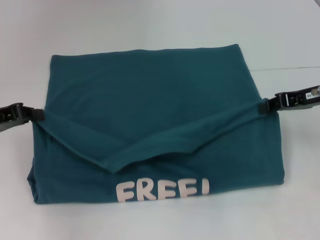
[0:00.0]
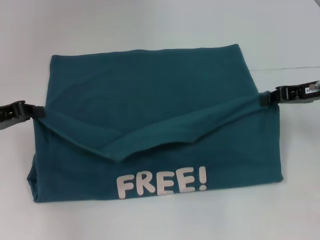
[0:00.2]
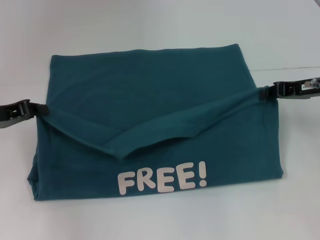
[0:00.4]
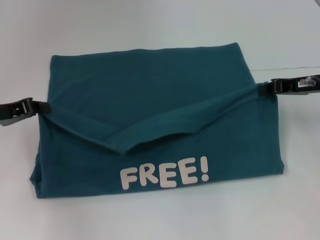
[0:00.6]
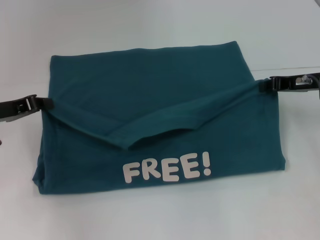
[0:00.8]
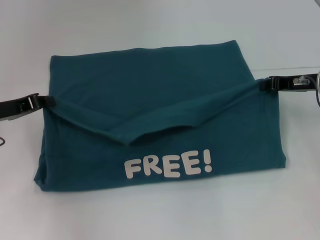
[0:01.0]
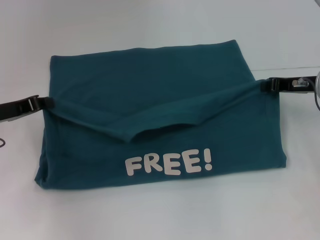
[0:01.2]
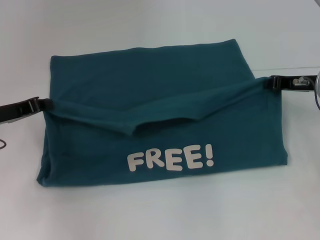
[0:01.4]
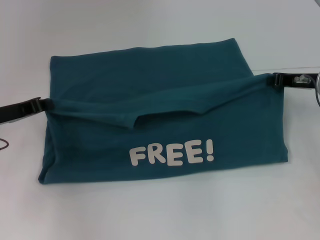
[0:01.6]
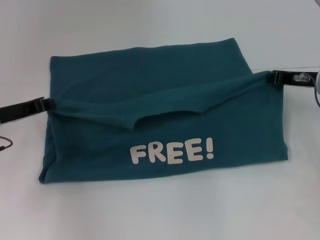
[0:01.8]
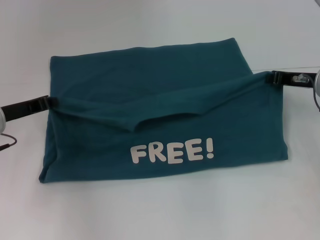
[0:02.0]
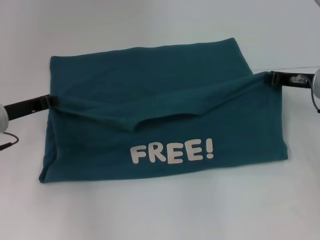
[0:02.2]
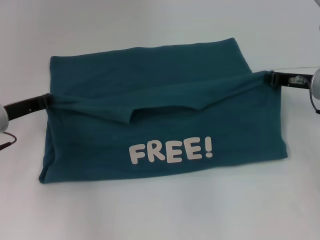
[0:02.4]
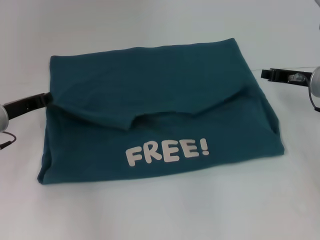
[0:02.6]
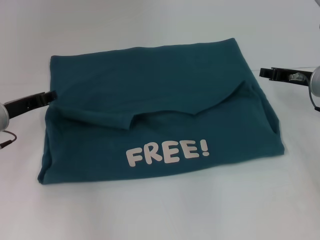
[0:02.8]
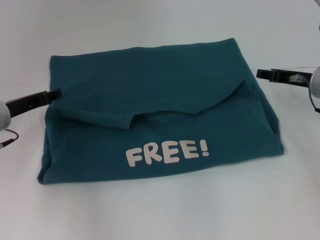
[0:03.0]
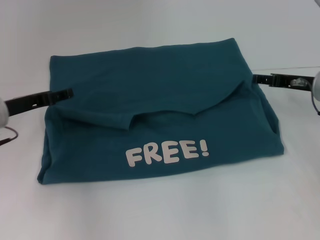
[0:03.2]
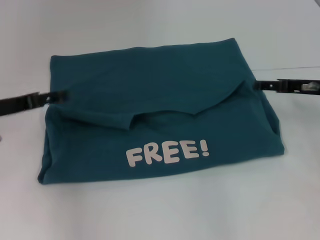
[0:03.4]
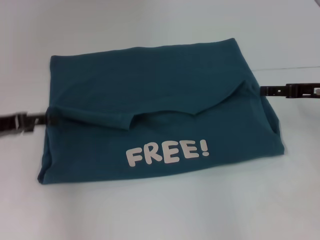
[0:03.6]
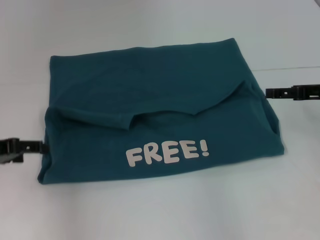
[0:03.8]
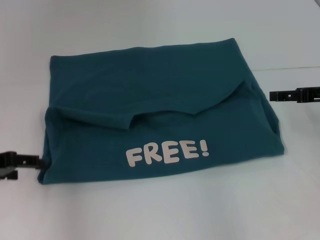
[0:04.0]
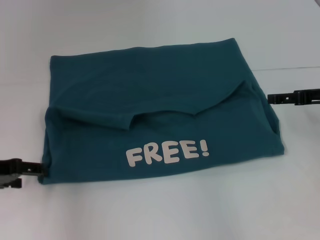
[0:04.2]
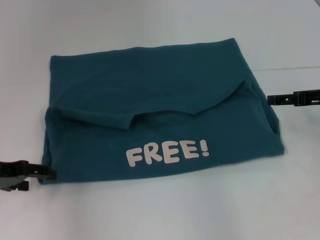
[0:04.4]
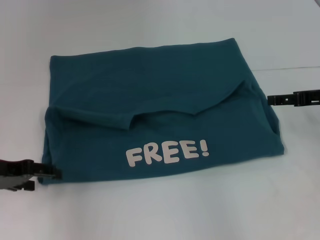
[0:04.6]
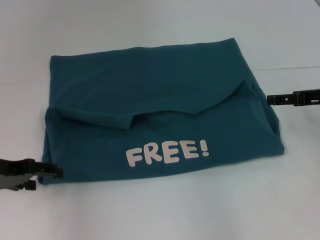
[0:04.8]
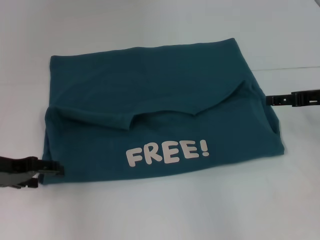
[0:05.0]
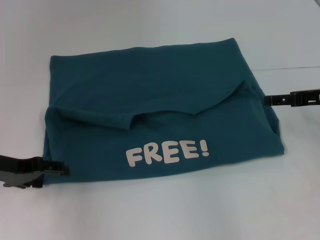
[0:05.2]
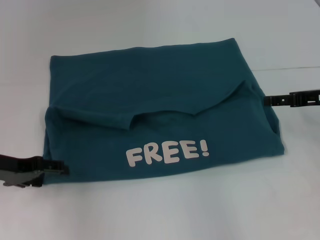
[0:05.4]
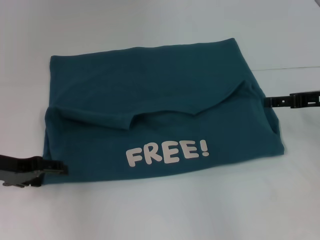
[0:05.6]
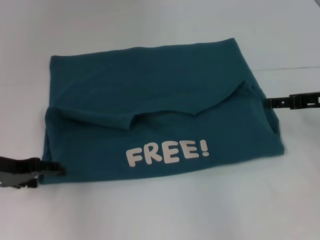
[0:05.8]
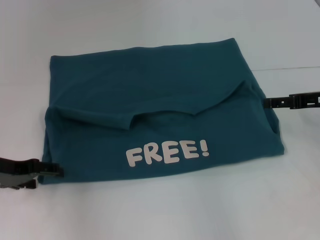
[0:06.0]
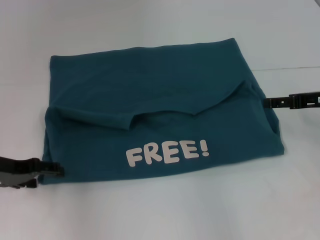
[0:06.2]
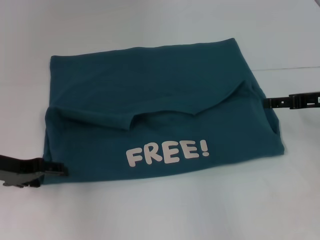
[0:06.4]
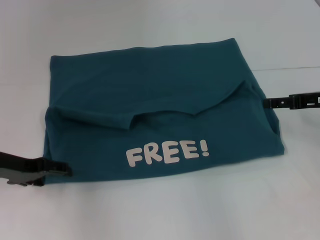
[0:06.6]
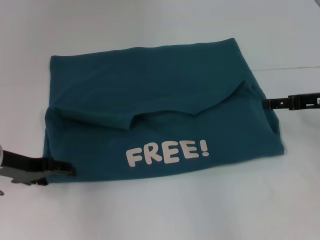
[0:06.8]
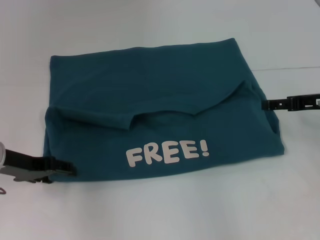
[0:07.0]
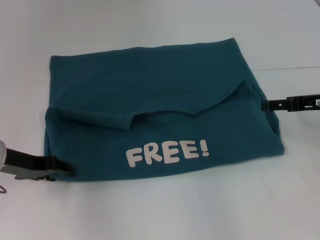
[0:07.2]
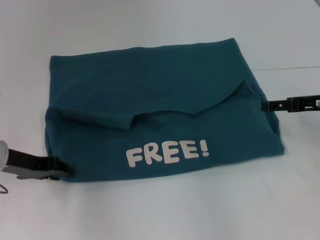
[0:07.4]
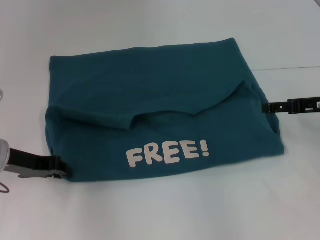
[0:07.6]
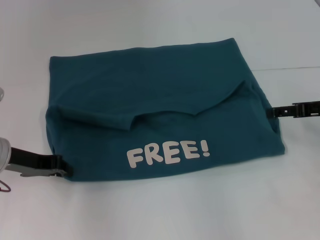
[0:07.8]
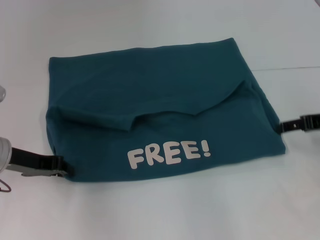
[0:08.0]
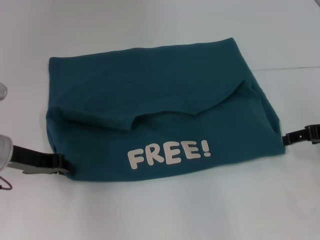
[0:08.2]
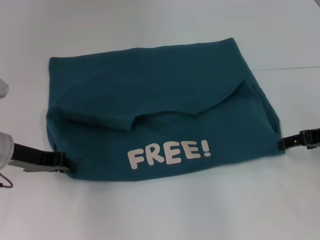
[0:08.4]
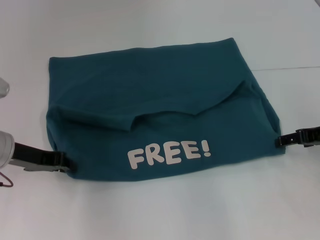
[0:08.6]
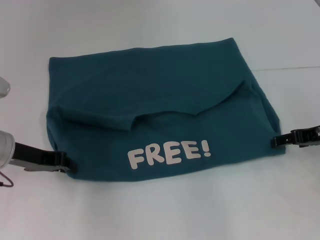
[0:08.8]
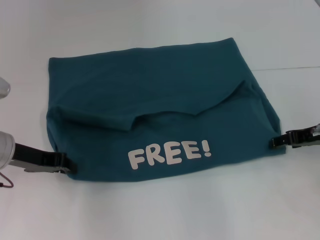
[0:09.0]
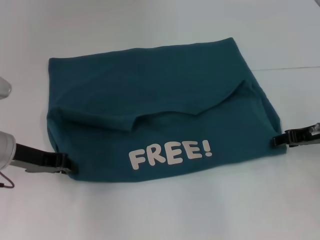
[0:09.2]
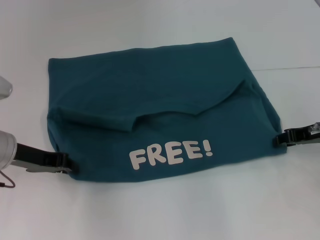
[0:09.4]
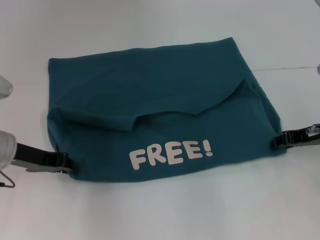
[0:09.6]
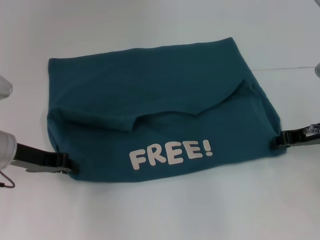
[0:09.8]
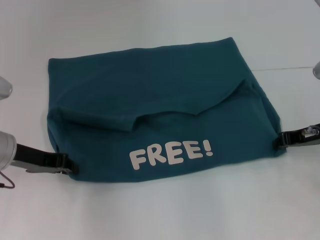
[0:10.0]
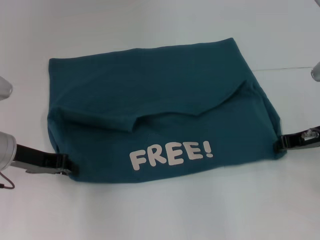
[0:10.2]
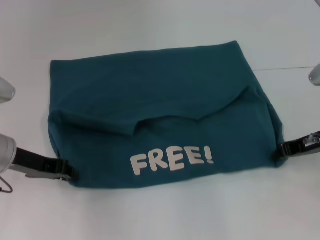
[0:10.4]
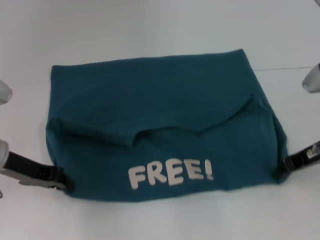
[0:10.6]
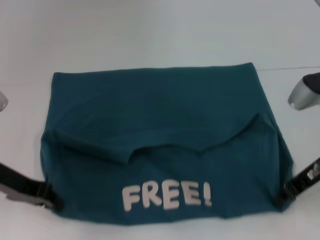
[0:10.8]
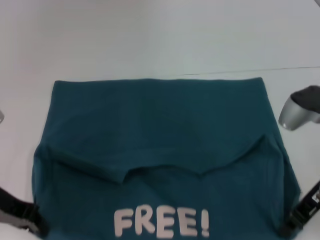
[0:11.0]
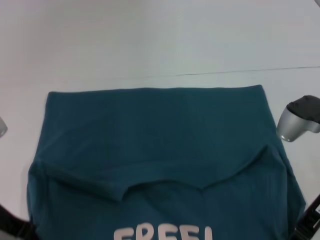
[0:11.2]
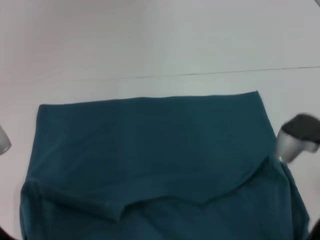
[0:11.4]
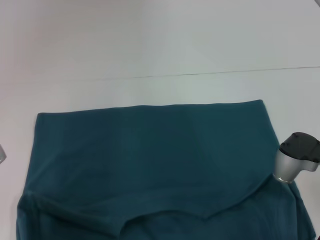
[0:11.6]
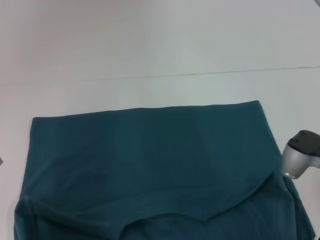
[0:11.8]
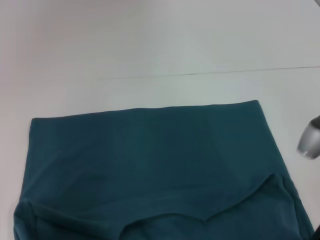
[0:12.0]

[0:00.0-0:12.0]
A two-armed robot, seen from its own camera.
Step, 0:00.0 to 0:02.8: Fold the clothes to the left.
Step, 0:00.0 to 0:02.8: Fold the clothes to the right.
Step, 0:03.0 to 0:11.6: Pull the clothes with your left hand.
Step, 0:03.0 to 0:11.6: Pull the clothes with your right hand.
0:00.0 to 0:01.6: The right gripper ends up approximately 5 cm from where it was. Meanwhile the left gripper shifts by about 5 cm.
0:01.6 to 0:03.0: The left gripper opens its fingers.
0:03.0 to 0:04.4: The grippers both shift backward by roughly 5 cm. The right gripper opens up. The left gripper opens.
0:04.4 to 0:06.0: The grippers stay close to where they were, moving slightly.
0:06.0 to 0:07.6: The left gripper closes its fingers.
0:07.6 to 0:09.0: The grippers move only a little.
0:09.0 to 0:10.4: The right gripper closes up.
0:10.4 to 0:12.0: Both grippers move backward, approximately 10 cm.

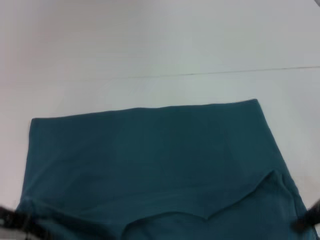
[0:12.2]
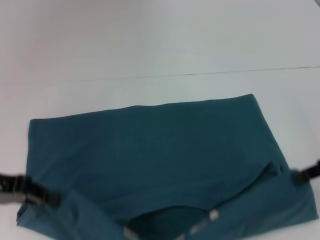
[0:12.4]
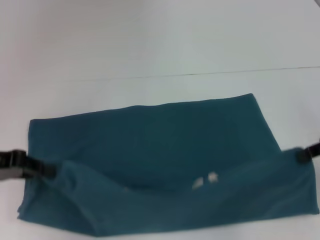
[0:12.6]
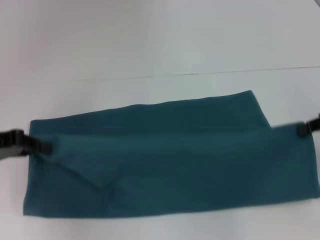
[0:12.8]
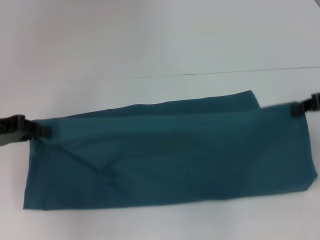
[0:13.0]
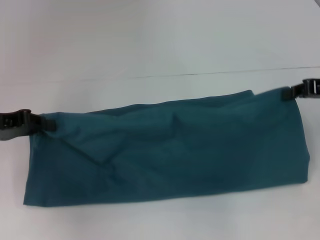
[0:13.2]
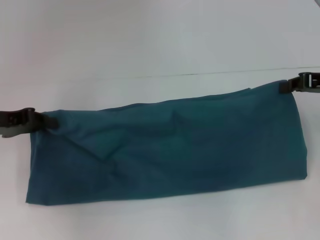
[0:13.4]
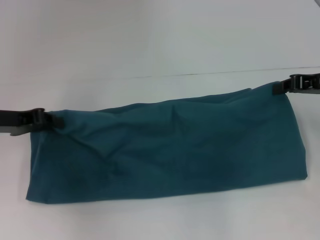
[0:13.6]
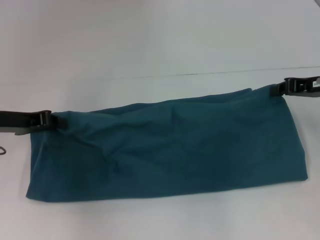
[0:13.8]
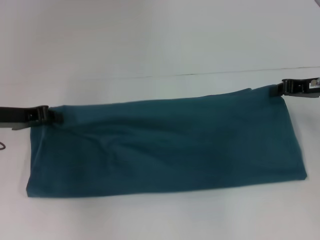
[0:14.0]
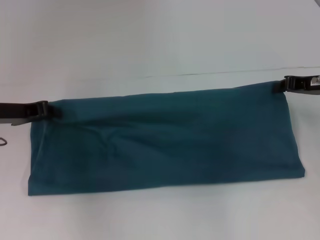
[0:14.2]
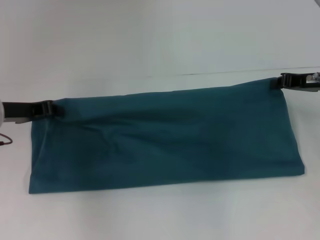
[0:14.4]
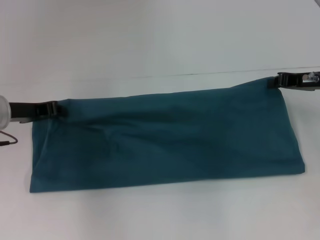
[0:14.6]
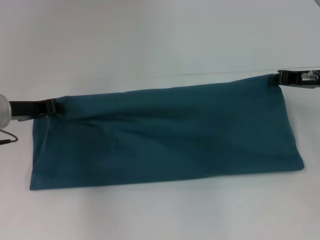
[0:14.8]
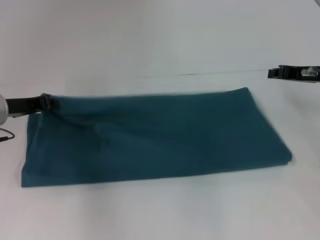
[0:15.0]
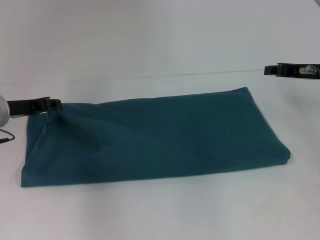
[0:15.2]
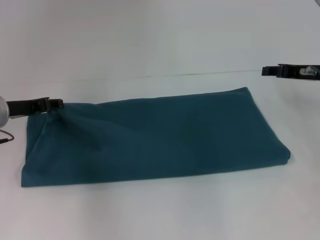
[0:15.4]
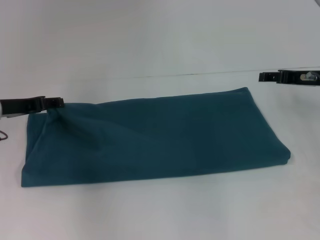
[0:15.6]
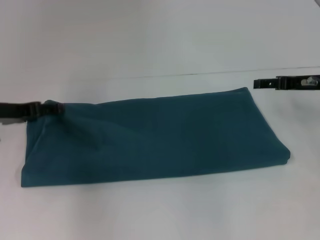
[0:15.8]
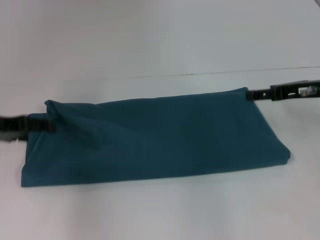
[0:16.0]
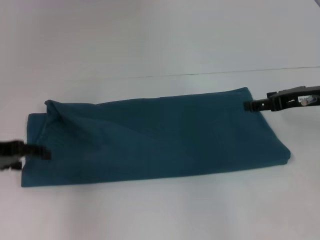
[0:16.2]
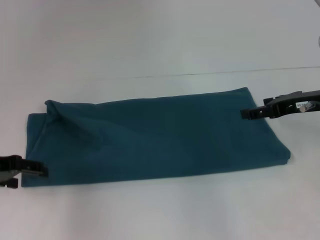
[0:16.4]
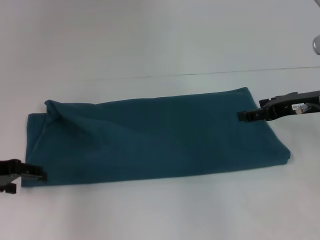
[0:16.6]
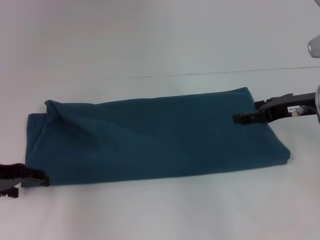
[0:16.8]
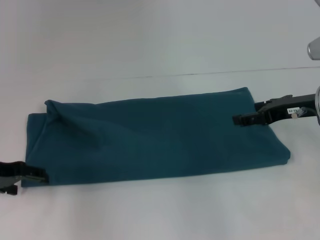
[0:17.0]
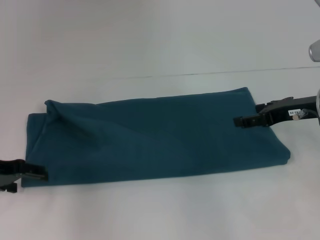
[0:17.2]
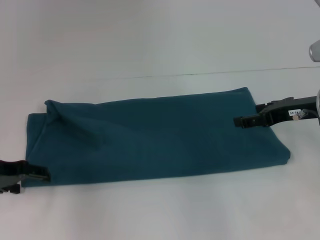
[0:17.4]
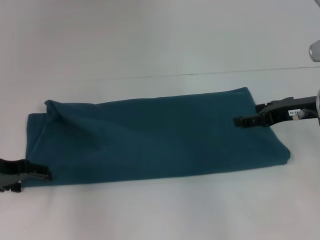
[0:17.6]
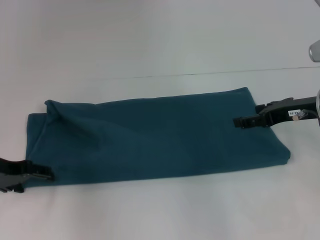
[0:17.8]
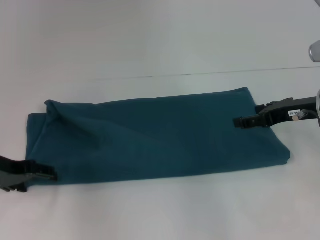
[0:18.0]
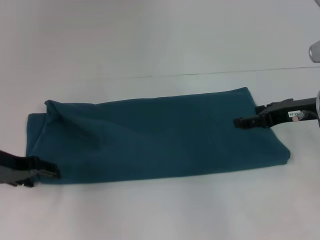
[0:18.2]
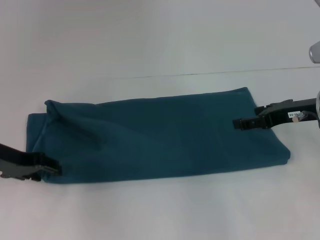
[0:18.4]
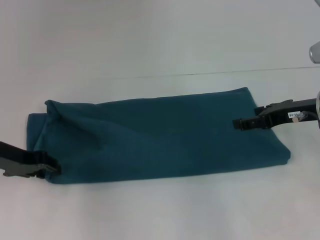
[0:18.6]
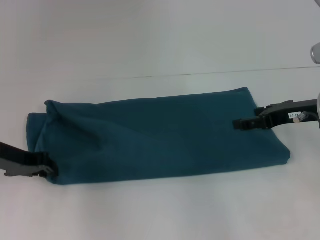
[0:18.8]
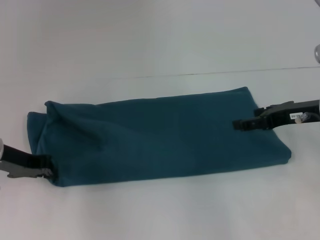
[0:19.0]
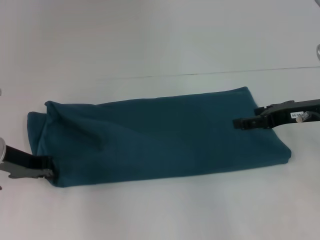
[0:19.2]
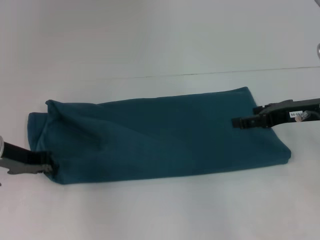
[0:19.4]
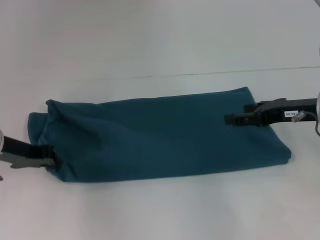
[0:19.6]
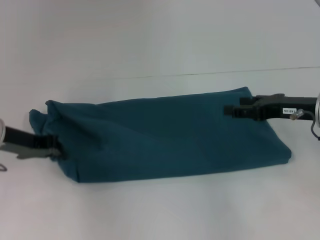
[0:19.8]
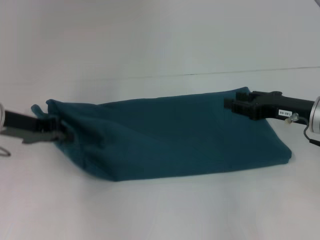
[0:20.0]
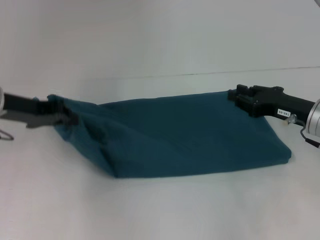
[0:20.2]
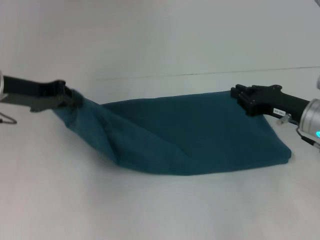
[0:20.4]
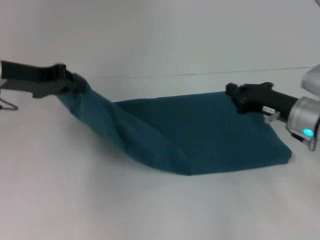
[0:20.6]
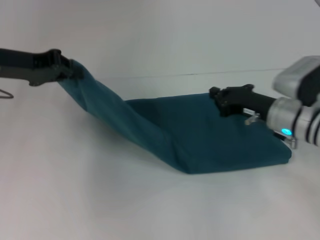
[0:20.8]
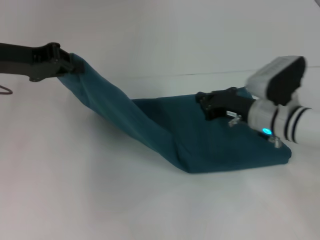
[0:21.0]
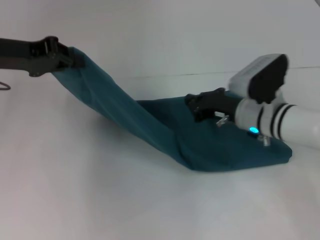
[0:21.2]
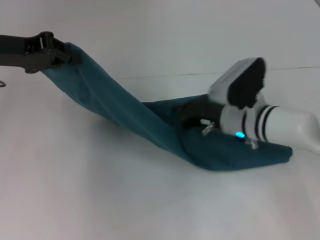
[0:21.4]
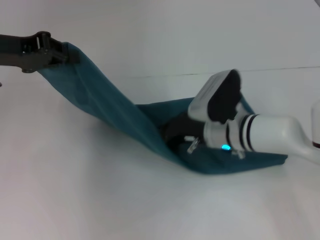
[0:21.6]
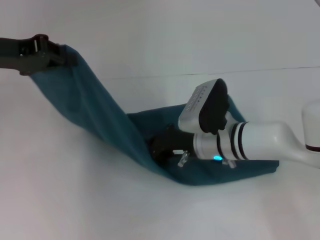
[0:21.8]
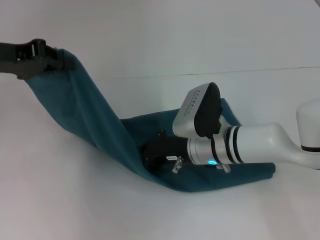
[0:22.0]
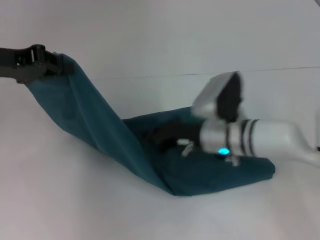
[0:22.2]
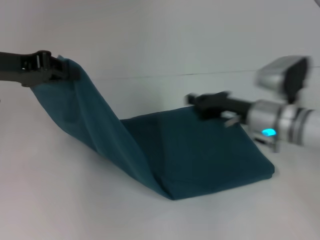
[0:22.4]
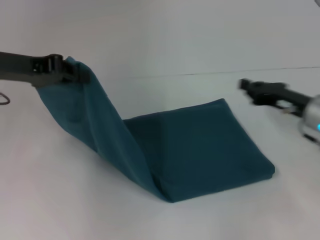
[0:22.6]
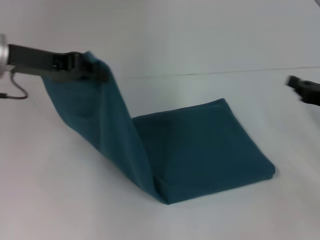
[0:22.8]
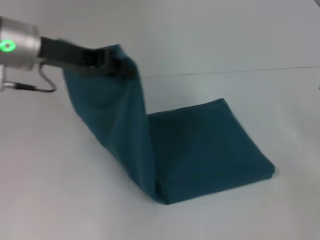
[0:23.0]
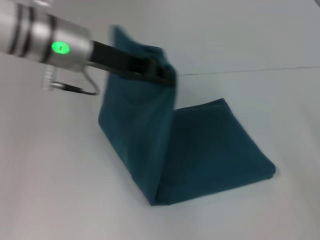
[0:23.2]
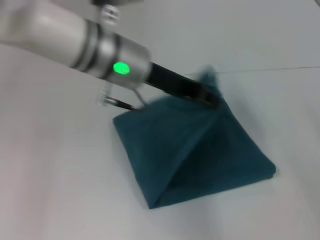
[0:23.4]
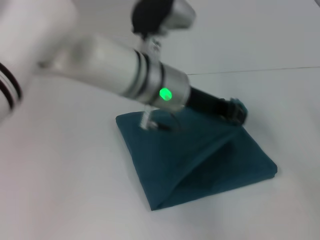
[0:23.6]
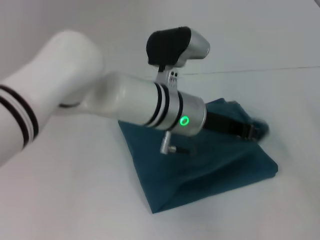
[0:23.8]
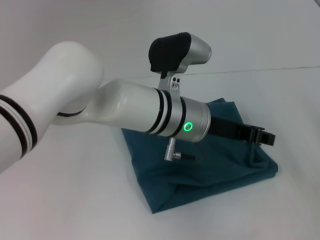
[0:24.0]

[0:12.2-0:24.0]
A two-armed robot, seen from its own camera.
Step, 0:12.2 to 0:15.6: Fold the clothes to the left.
Step, 0:12.2 to 0:15.6: Fold the clothes to the right.
Step, 0:15.8 to 0:21.6: Press the middle of the clothes with your right hand.
0:12.2 to 0:13.6: Both grippers travel together forward, some 10 cm.
0:13.6 to 0:15.2: The left gripper moves approximately 5 cm. The right gripper moves about 5 cm.
0:15.2 to 0:16.6: The right gripper shifts by approximately 5 cm, and opens its fingers. Meanwhile the left gripper heads backward, covering about 5 cm, and opens its fingers.
0:16.6 to 0:18.2: There are only small adjustments of the grippers.
0:18.2 to 0:19.6: The left gripper closes its fingers.
0:19.6 to 0:21.0: The right gripper moves downward and to the left, some 10 cm, and closes its fingers, while the left gripper shifts some 10 cm upward.
0:21.0 to 0:22.6: The right gripper travels to the right by about 10 cm.
0:22.6 to 0:24.0: The right gripper goes roughly 15 cm to the right and backward. Meanwhile the left gripper shifts approximately 25 cm to the right.
